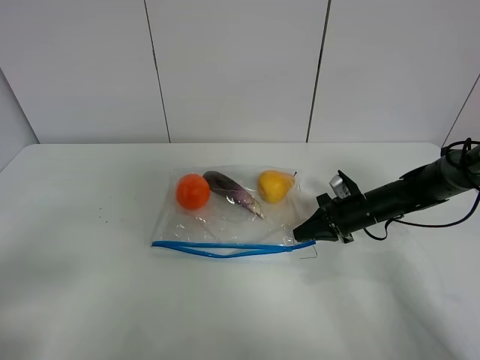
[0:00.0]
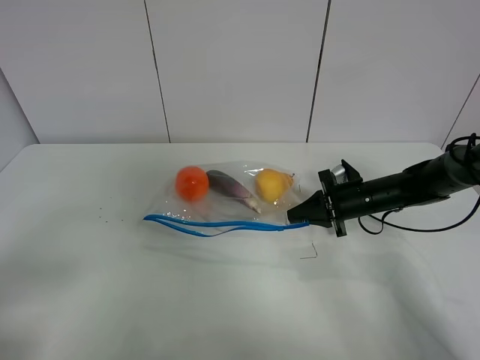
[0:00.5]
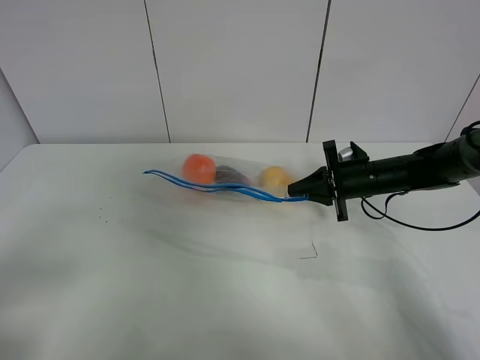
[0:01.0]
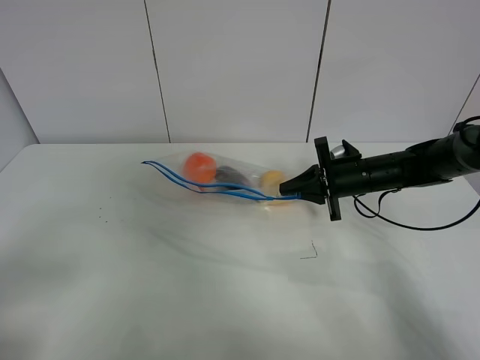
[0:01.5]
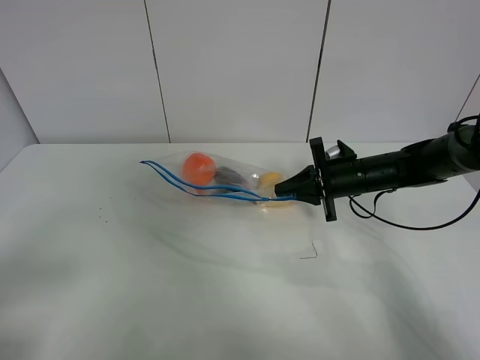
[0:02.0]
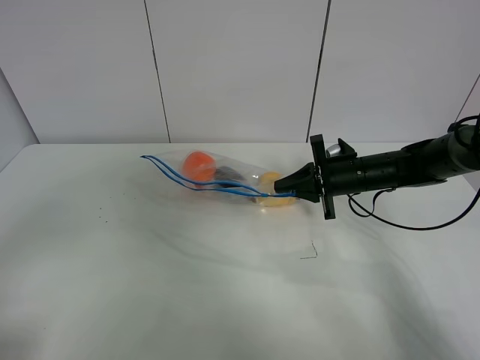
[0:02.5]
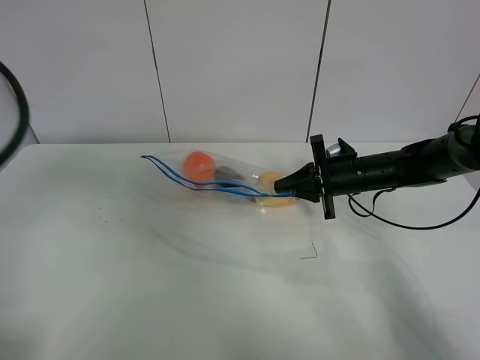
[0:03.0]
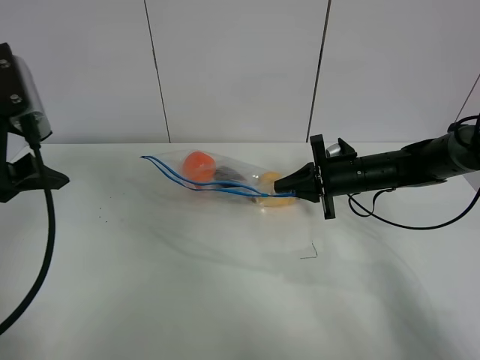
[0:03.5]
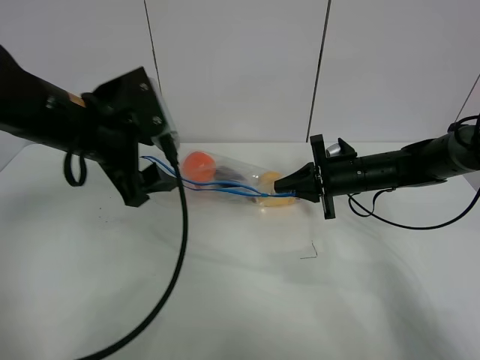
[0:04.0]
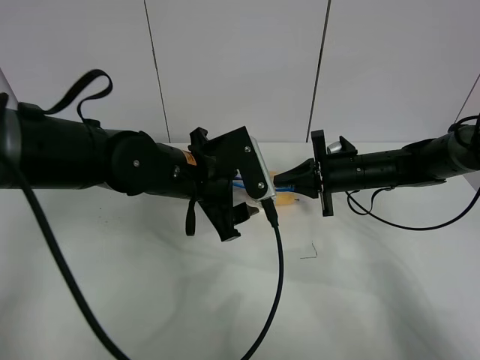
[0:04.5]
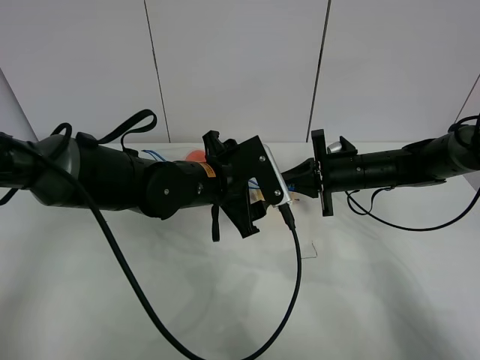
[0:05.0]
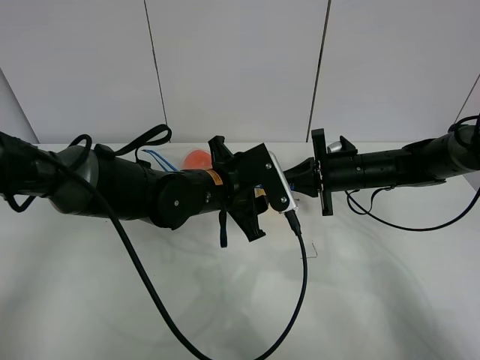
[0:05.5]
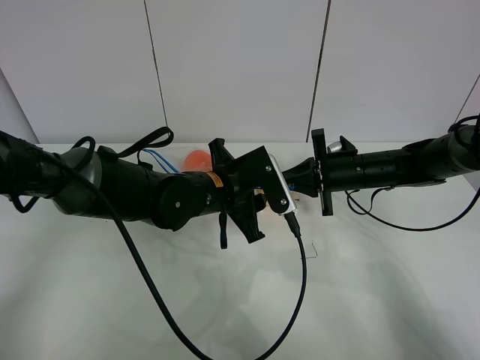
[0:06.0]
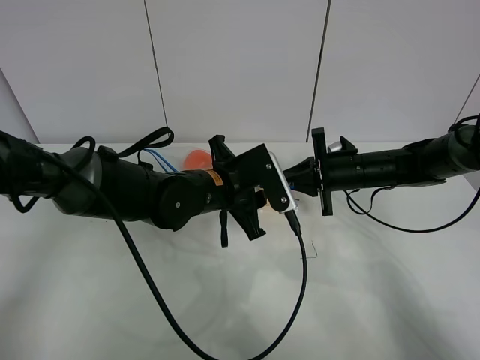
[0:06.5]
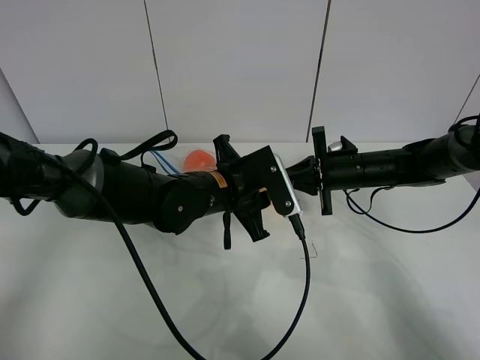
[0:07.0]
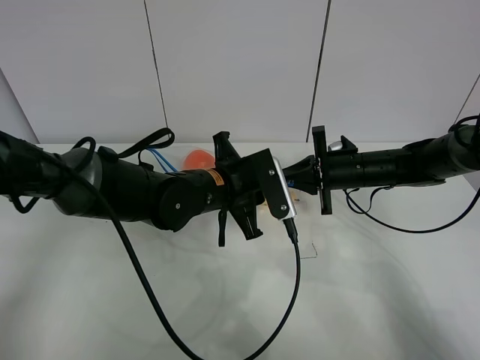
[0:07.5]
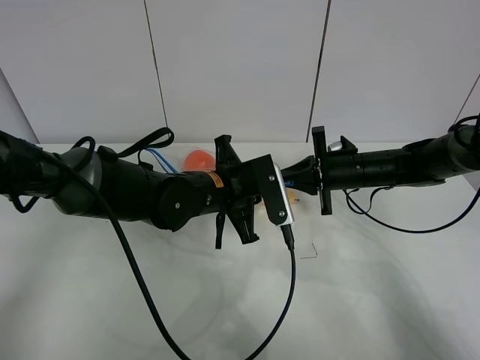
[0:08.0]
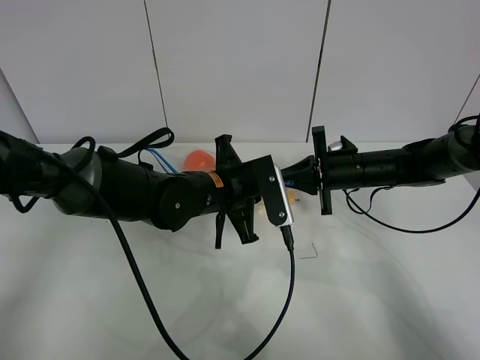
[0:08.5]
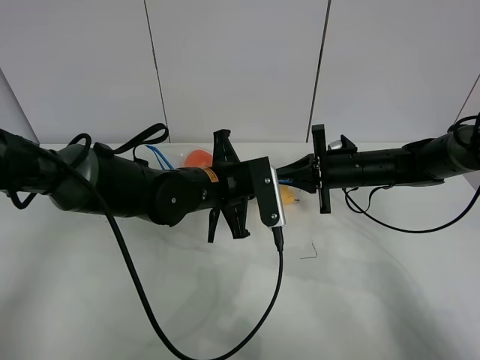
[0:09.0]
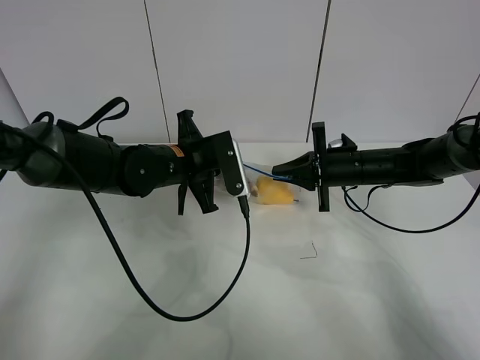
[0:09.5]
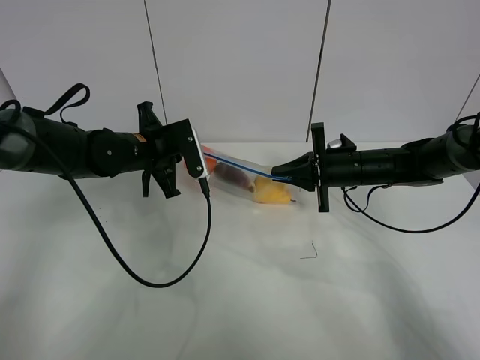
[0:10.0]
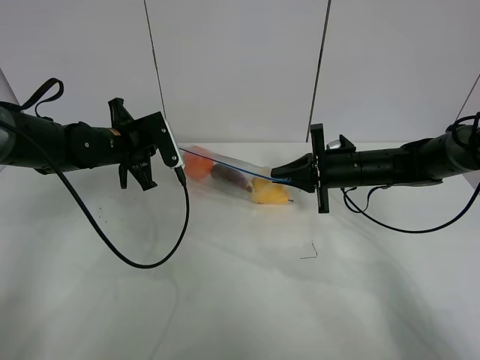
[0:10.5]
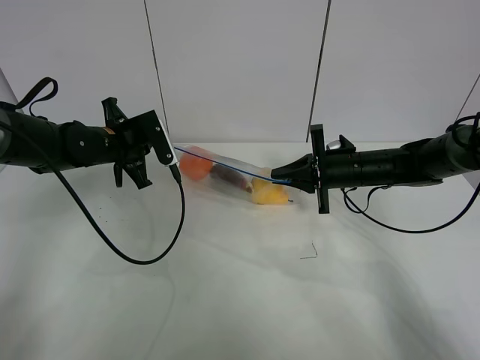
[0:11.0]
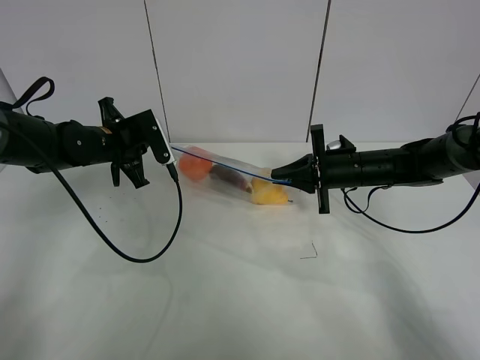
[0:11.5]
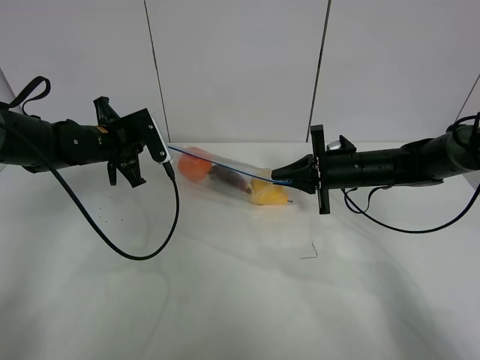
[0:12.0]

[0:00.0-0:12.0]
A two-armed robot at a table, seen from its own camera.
Step, 0:00.0 to 0:01.0: Lift the fruit bag with your right gripper.
0:00.0 to 0:02.0: The right gripper moves upward, some 5 cm.
0:02.0 to 0:04.0: The left gripper travels forward and to the right by about 30 cm.
0:04.0 to 0:06.0: The left gripper heads to the right and downward, covering approximately 15 cm, and closes.
0:06.0 to 0:08.0: The left gripper closes its fingers.
0:08.0 to 0:10.0: The left gripper heads to the left and forward, covering roughly 15 cm.
0:10.0 to 0:12.0: The left gripper goes approximately 5 cm to the left.

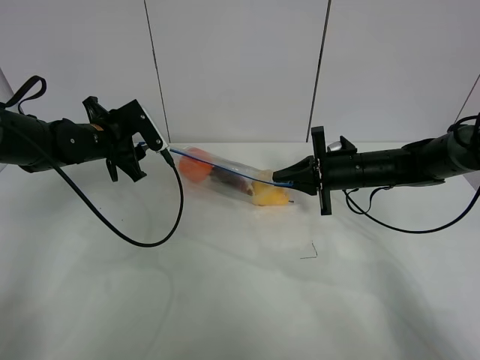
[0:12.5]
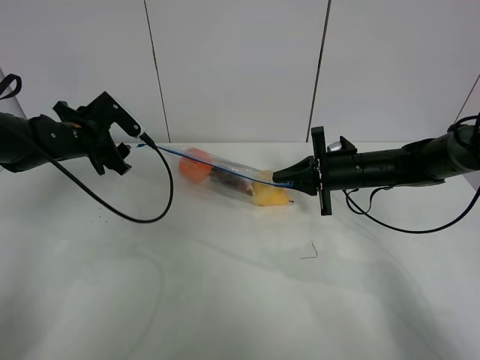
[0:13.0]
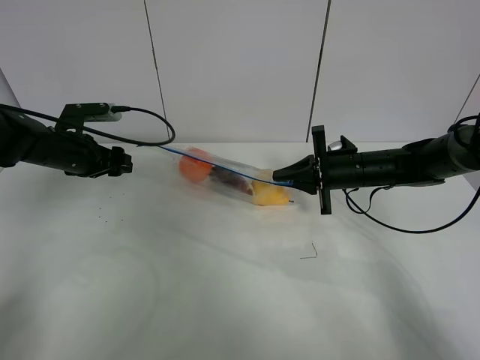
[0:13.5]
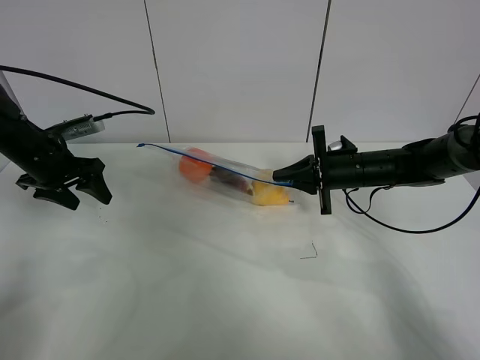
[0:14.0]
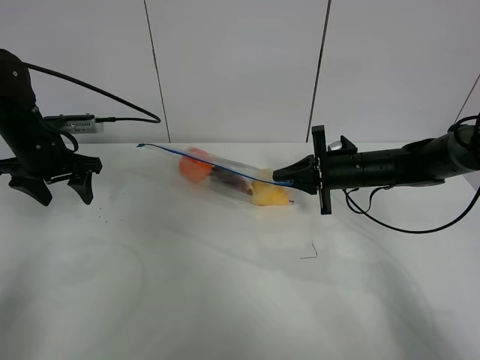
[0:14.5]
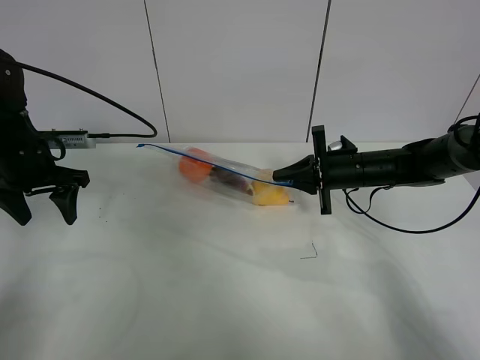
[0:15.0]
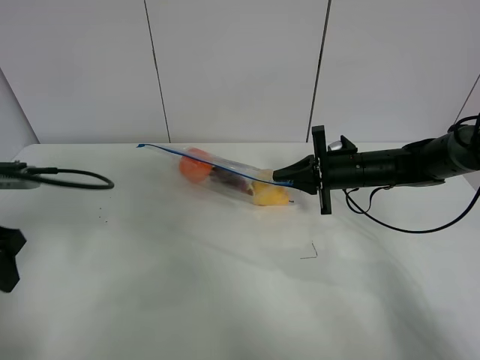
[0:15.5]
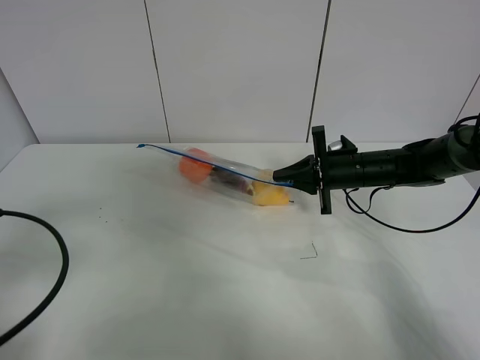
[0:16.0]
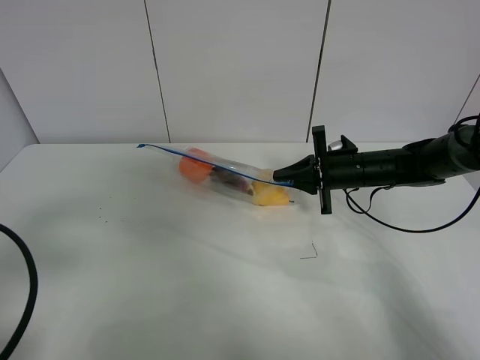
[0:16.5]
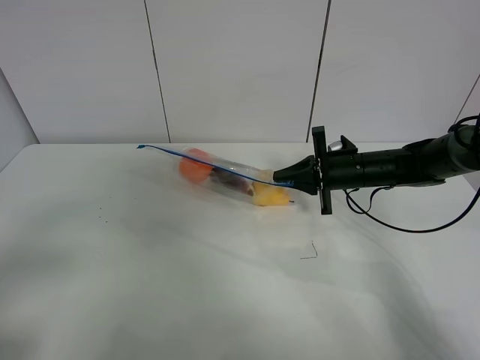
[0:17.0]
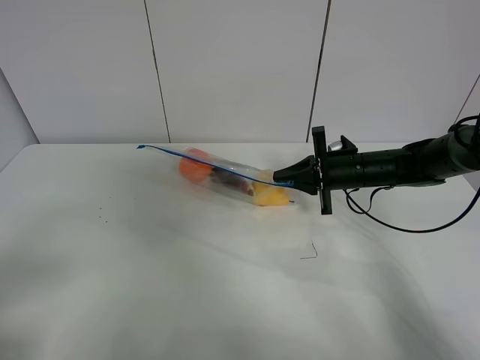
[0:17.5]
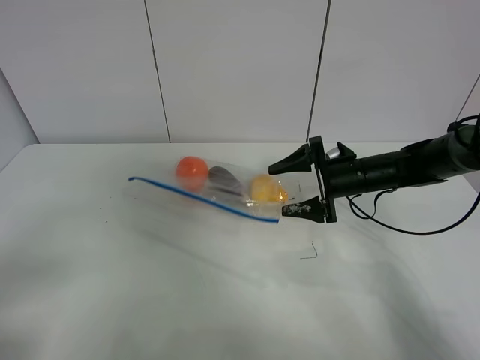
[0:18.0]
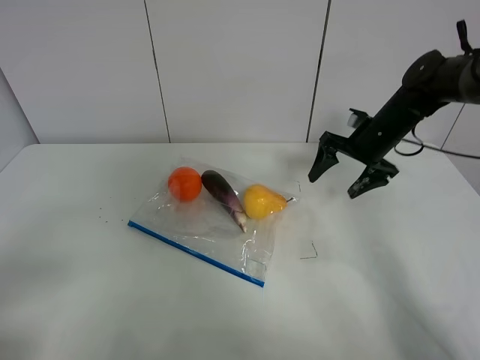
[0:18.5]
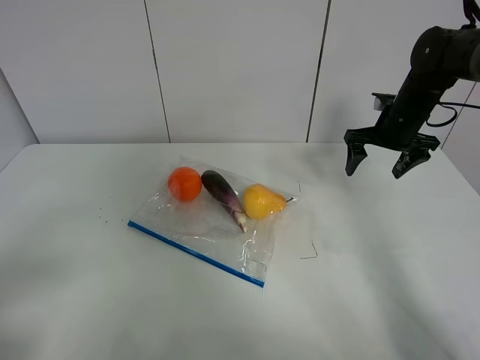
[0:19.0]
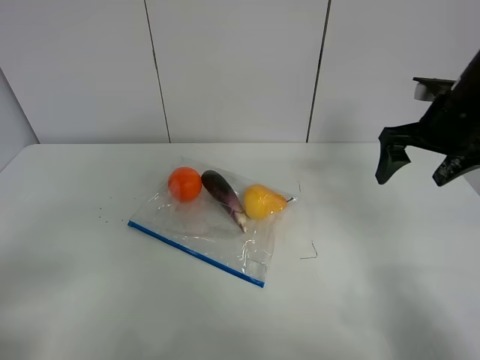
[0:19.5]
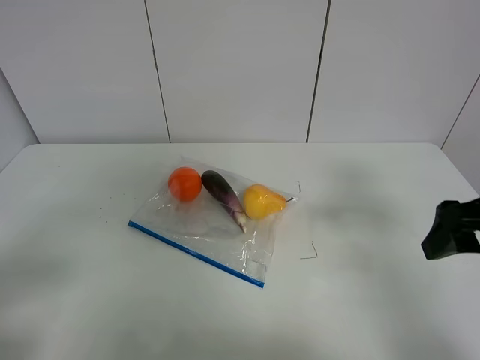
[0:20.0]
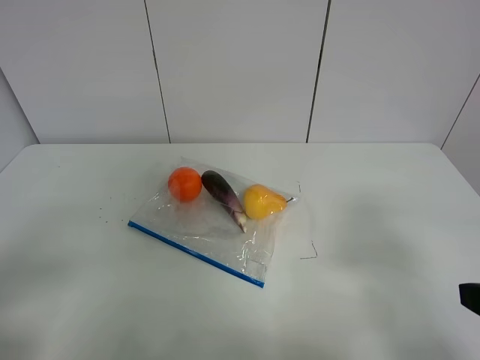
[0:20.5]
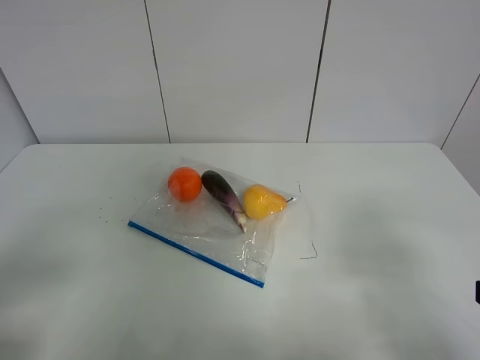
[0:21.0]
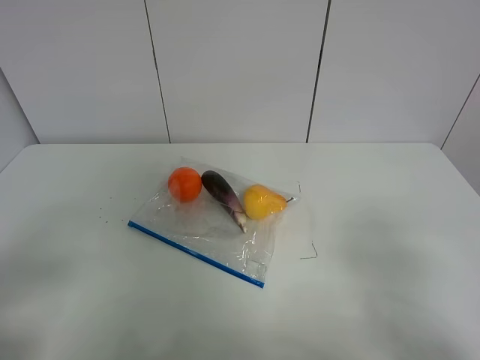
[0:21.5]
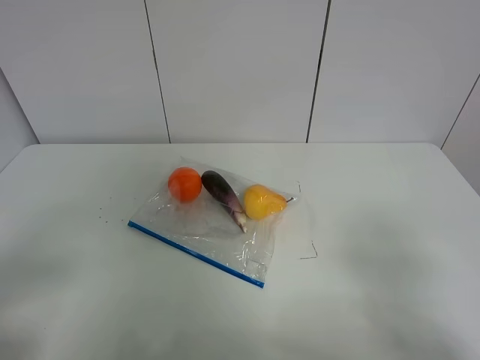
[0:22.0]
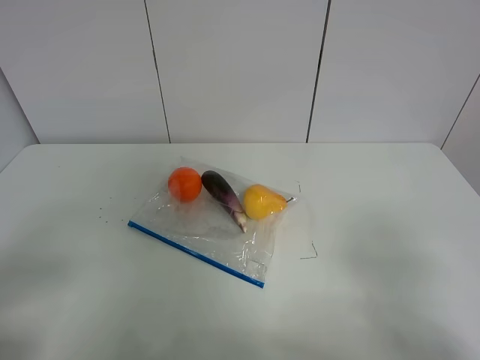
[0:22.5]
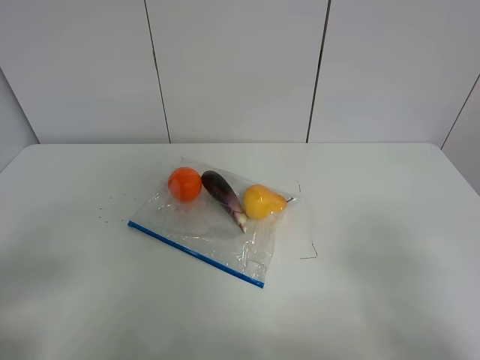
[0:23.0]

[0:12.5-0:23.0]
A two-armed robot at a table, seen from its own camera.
0:12.5 to 0:14.5: The left gripper travels to the left by roughly 10 cm.
0:14.5 to 0:16.5: The left gripper is displaced backward by some 30 cm.
0:16.5 to 0:19.0: The right gripper shifts some 10 cm upward, to the right and forward, and opens up. The left gripper goes some 5 cm backward.
0:19.0 to 0:21.0: The right gripper shifts some 40 cm backward.
